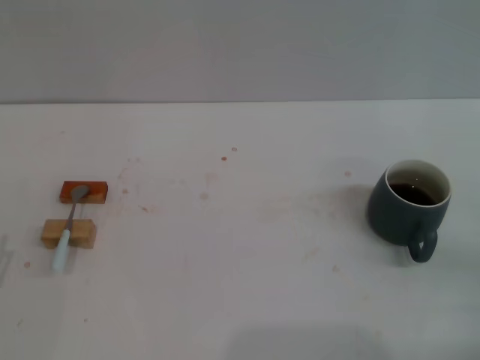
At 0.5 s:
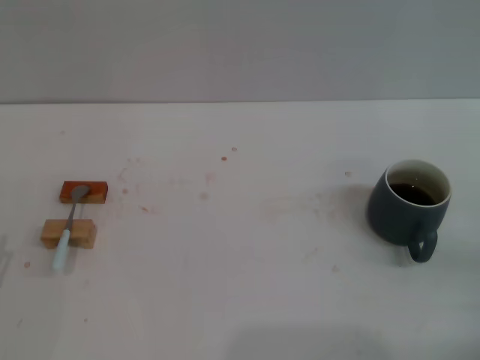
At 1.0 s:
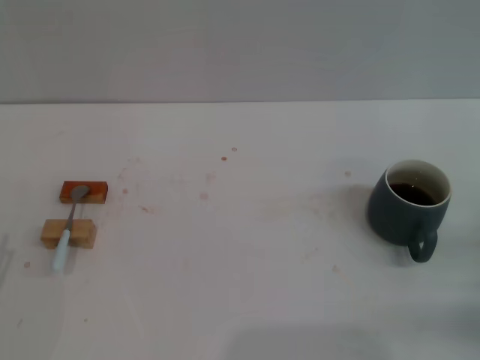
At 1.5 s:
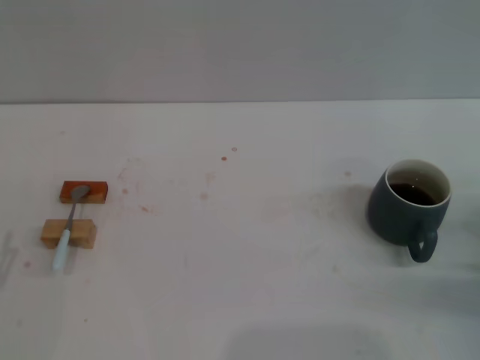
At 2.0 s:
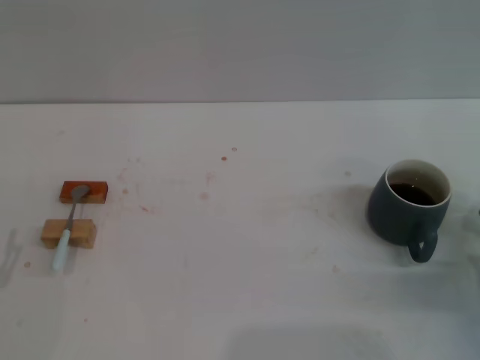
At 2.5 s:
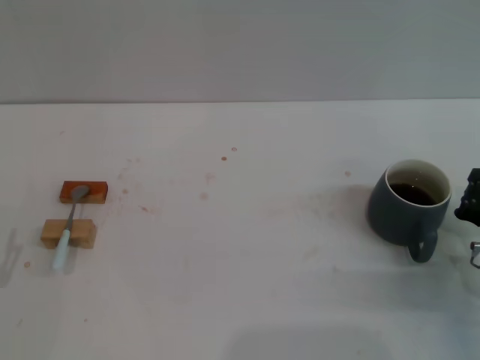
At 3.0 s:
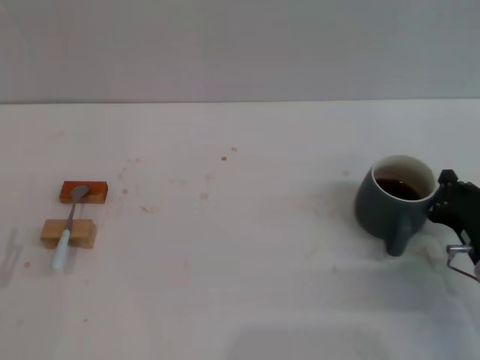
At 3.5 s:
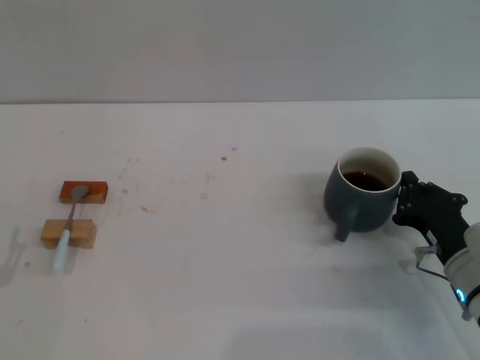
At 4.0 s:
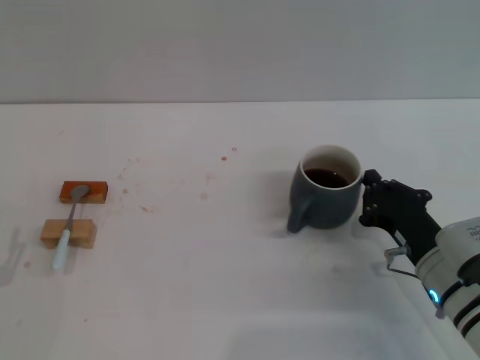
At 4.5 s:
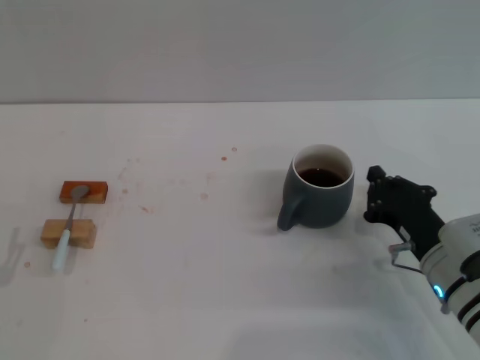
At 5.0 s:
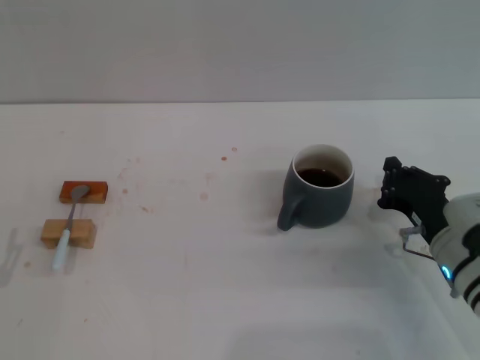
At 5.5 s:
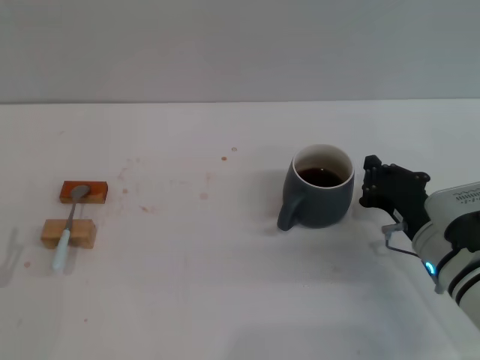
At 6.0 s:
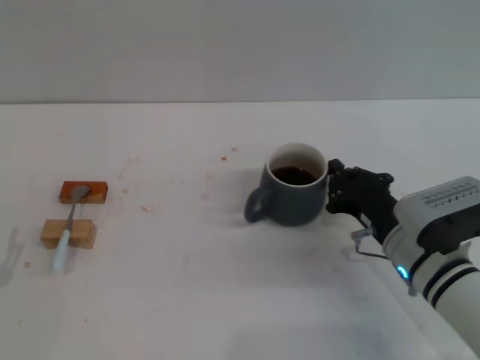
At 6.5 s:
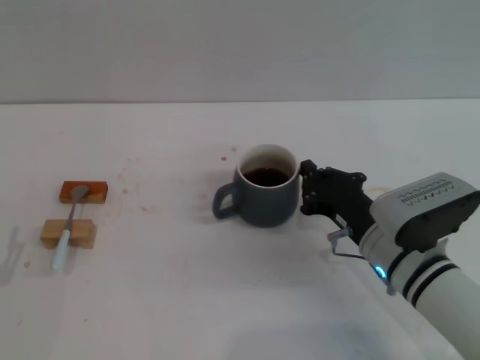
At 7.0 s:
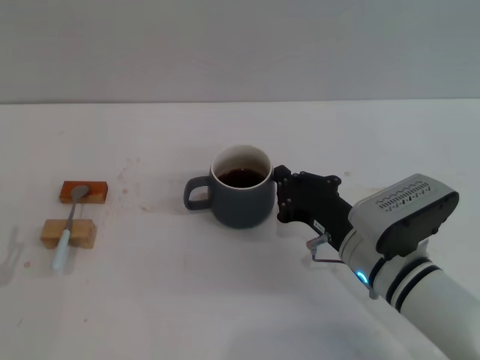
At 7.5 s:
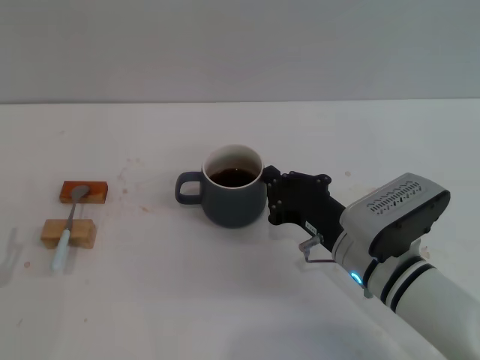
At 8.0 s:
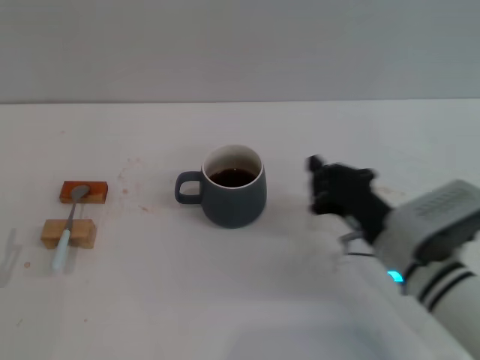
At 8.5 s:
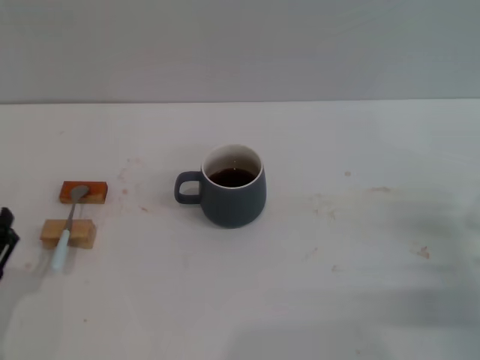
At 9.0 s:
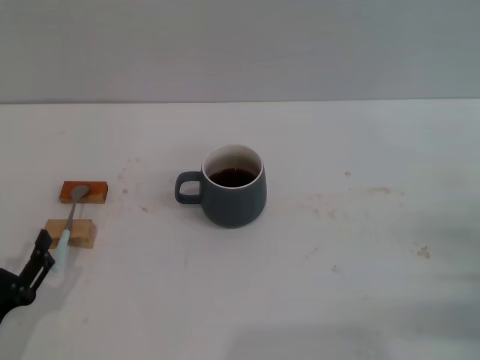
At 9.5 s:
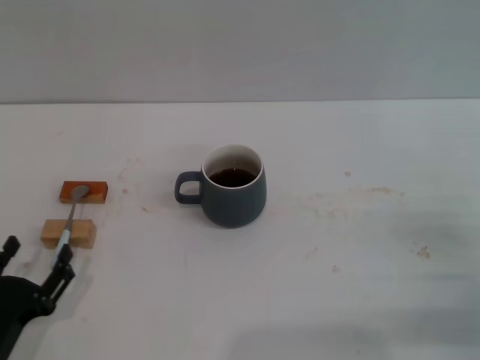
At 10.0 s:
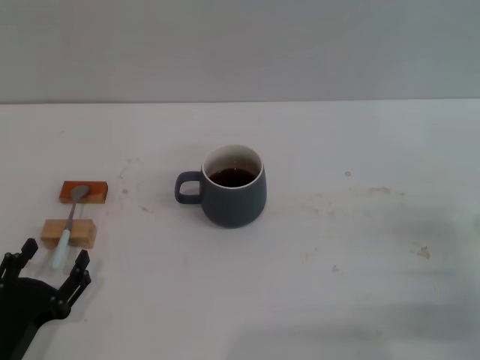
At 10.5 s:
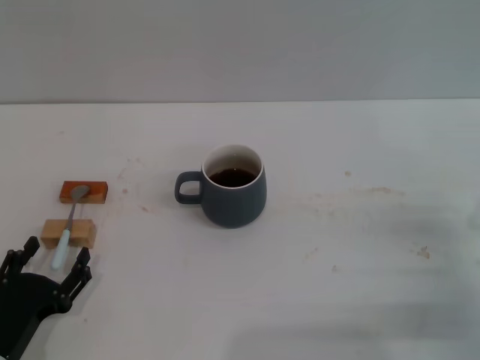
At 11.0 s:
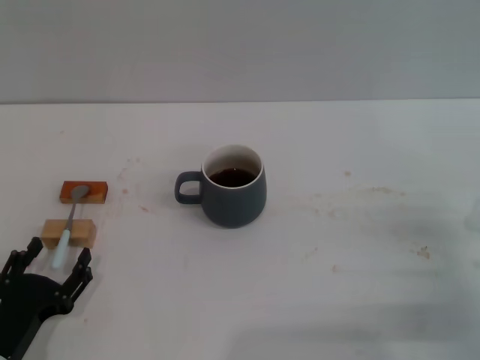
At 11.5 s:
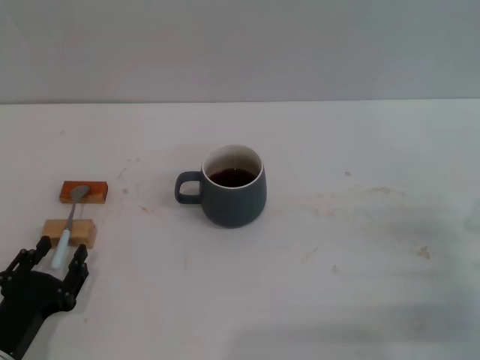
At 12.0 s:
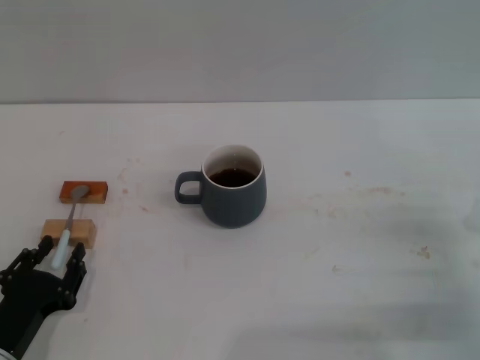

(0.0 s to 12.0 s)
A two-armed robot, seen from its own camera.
Task of the whole recording: Move the grey cup to the center, lift the blue spoon, stir it three times in the cup, and put the spoon into the cup.
Step, 0.0 s - 8.0 s: Move the cup with coffee to the center of view with the right gripper.
0.0 s - 2.0 s: The right gripper heads forward, covering roughly 5 cm.
2.0 s - 4.0 s: The right gripper heads to the left, covering some 10 cm.
4.0 s - 6.0 s: The grippers move only a little.
6.0 s - 8.0 s: The grippers make only small movements.
8.0 s - 10.0 s: The right gripper goes about 15 cm to the right. Meanwhile the left gripper goes roughly 5 cm to the right.
10.0 s - 12.0 s: The left gripper closes.

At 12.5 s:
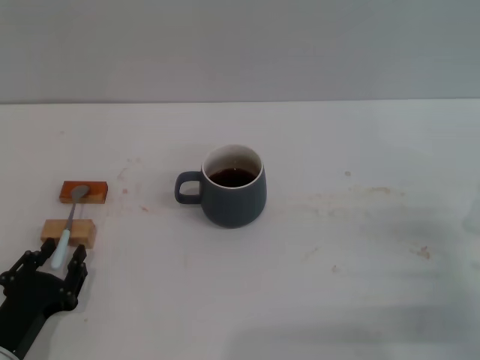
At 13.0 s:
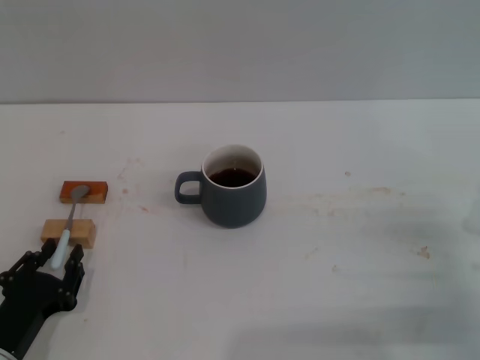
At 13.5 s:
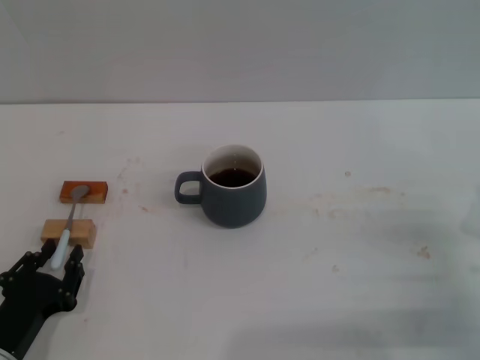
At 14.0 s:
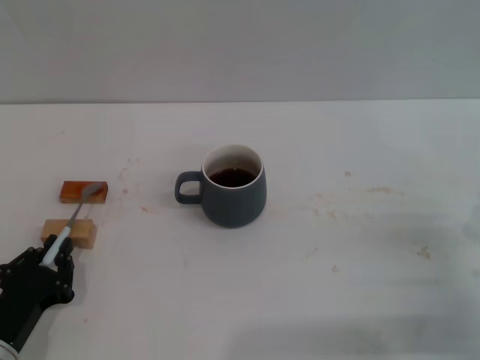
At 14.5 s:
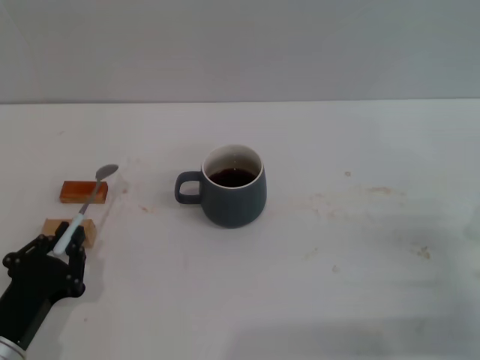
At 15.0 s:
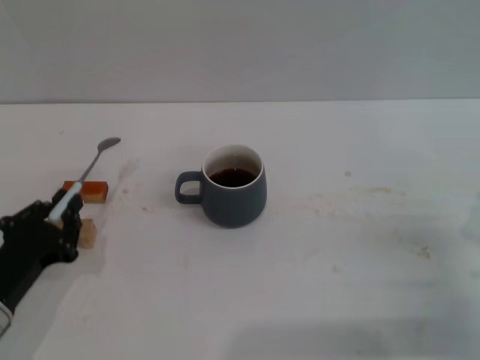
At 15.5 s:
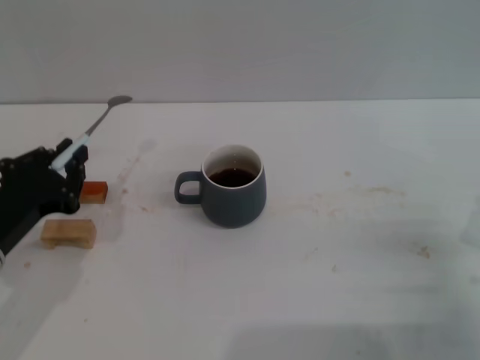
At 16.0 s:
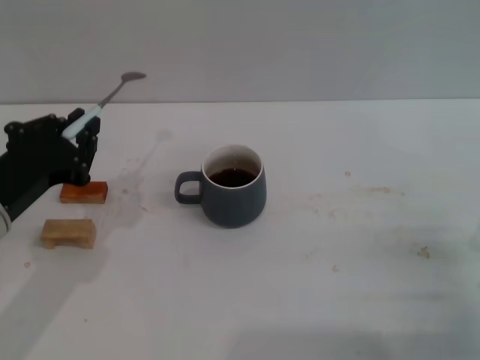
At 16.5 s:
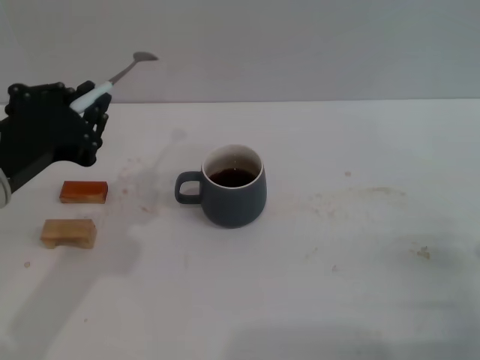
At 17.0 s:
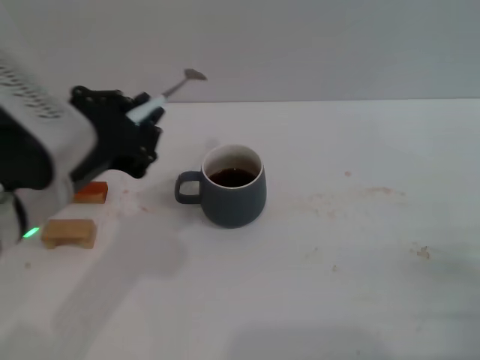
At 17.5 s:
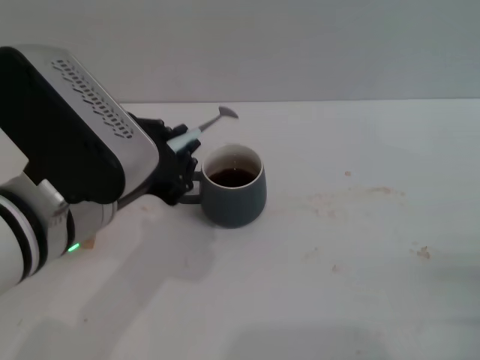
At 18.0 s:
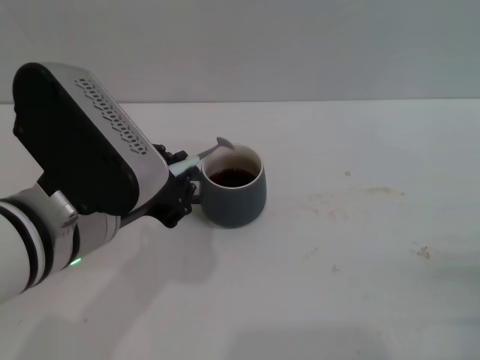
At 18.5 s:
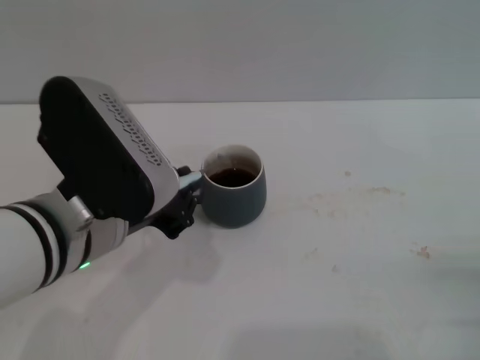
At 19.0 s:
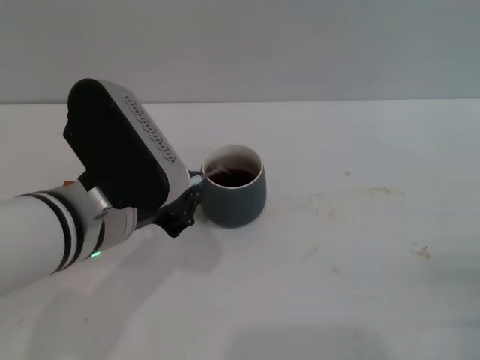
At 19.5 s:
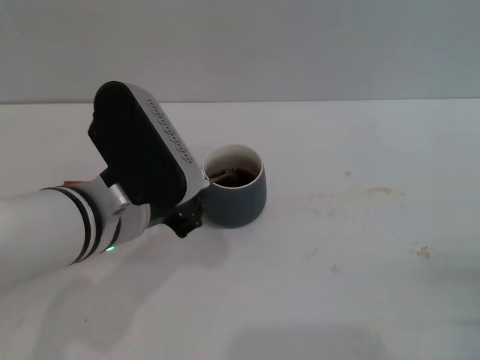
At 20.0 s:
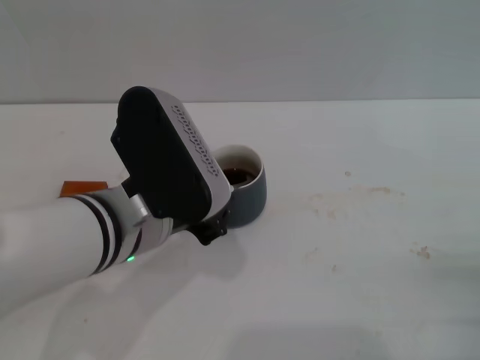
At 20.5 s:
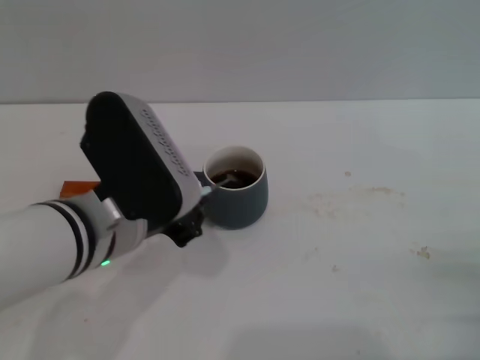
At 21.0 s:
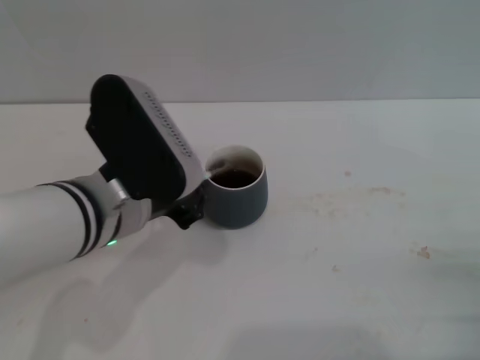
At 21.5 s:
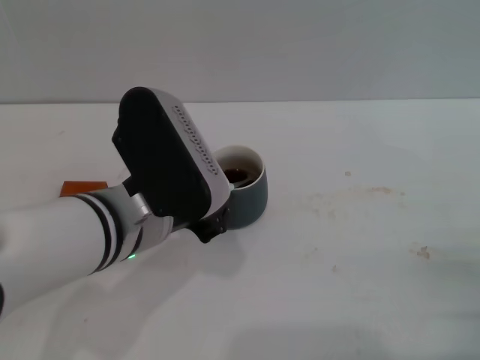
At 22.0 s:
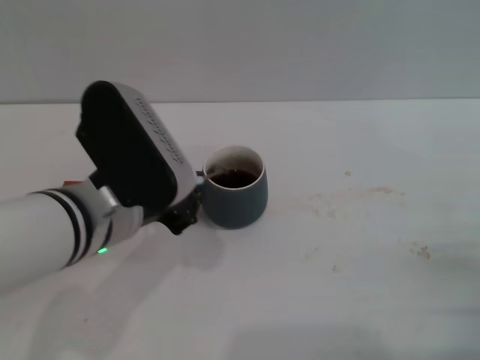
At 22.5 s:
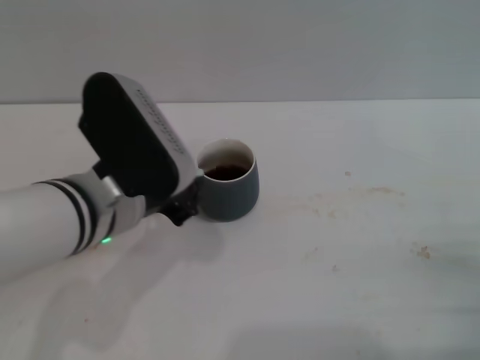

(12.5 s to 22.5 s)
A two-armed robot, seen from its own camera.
Task of the whole recording: Move the grey cup to the center, lift the blue spoon, stir it three times in the cup, and put the spoon into the cup.
Step, 12.5 s - 15.0 s: Pick up the spoon with the left gripper.
12.5 s - 14.5 s: The left gripper closes its fingers.
14.5 s - 16.5 s: The left gripper shifts some 20 cm upward.
16.5 s - 18.5 s: The left gripper goes about 10 cm to the right.
18.5 s - 22.5 s: The grippers make only small movements.

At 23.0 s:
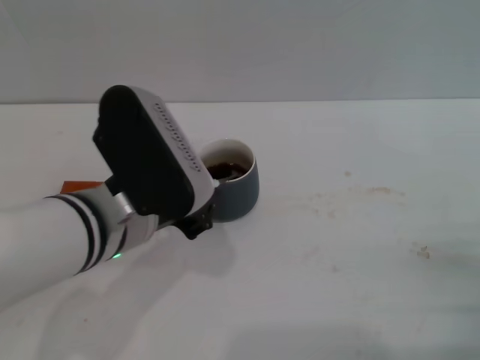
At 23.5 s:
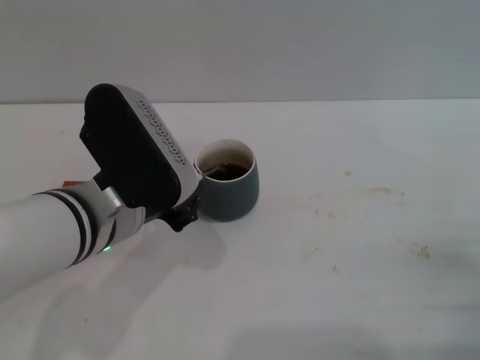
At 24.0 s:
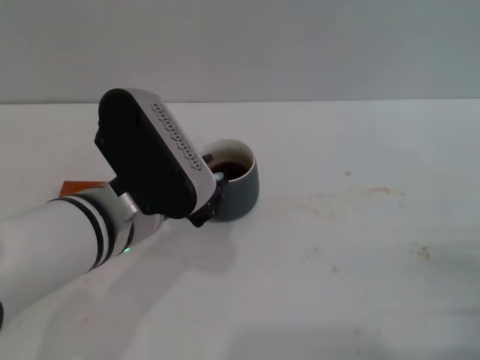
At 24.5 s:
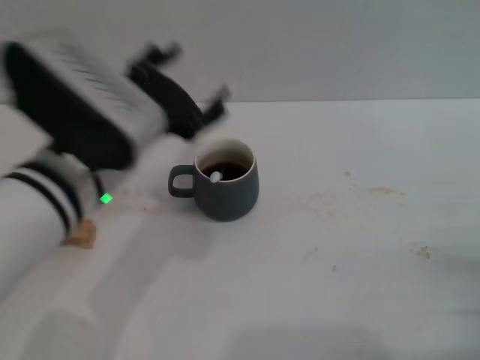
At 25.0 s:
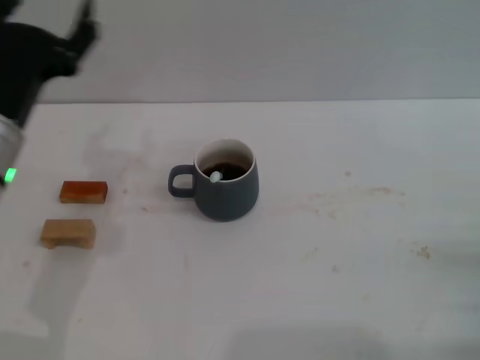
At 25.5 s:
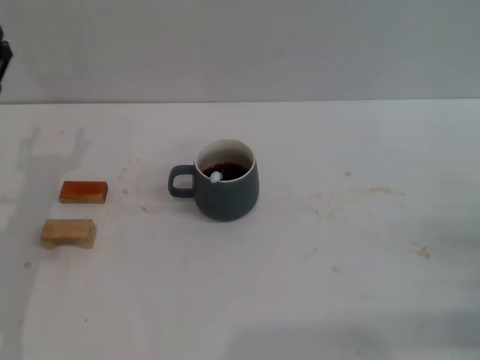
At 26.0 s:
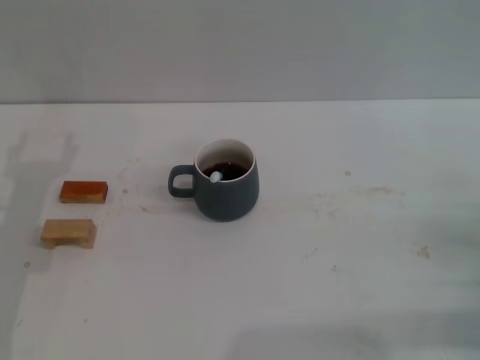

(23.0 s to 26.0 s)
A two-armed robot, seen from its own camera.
Task of the whole recording: Move the grey cup to the center, lift the blue spoon, stir it three times in the cup, and put the spoon into the cup.
23.0 s - 24.5 s: The left gripper opens up.
24.5 s - 26.0 s: The left gripper is displaced to the left and downward by roughly 15 cm.
